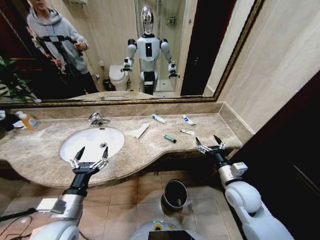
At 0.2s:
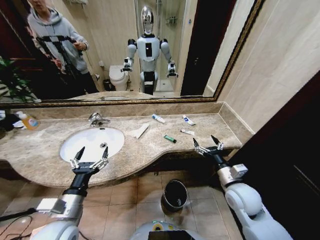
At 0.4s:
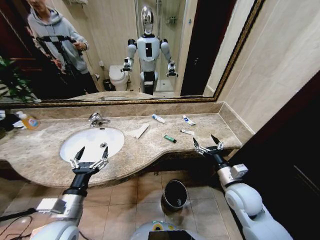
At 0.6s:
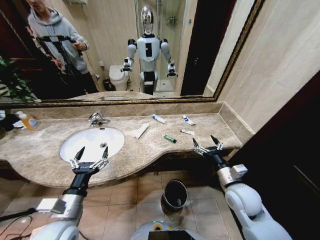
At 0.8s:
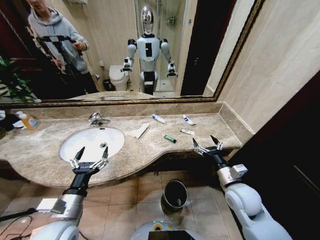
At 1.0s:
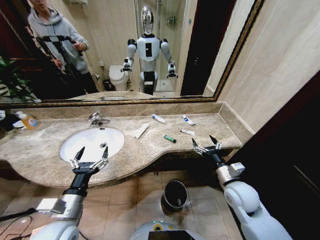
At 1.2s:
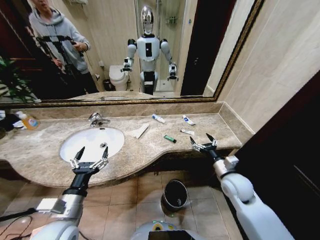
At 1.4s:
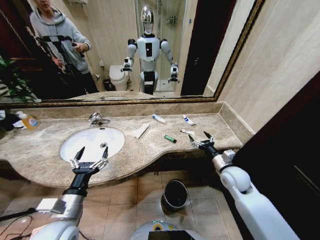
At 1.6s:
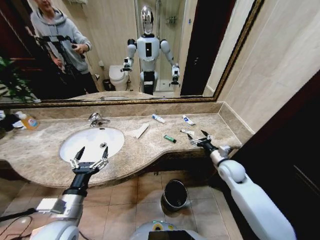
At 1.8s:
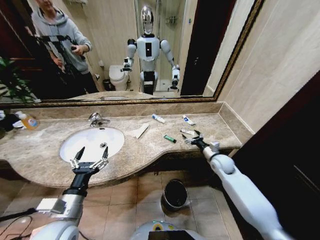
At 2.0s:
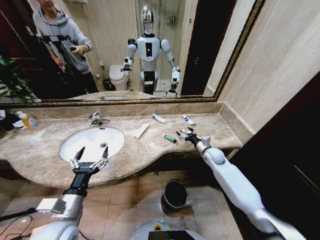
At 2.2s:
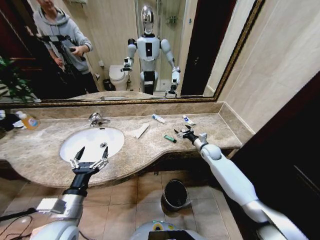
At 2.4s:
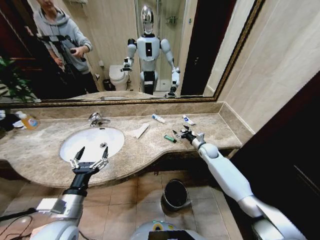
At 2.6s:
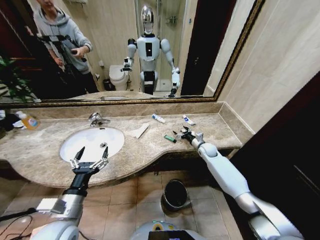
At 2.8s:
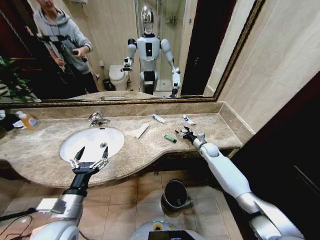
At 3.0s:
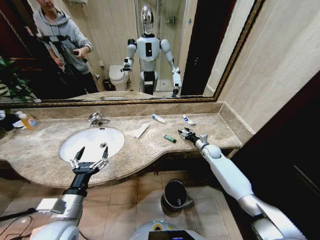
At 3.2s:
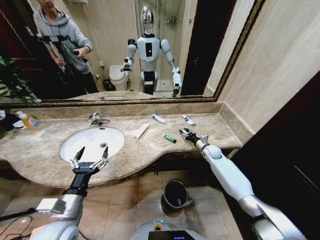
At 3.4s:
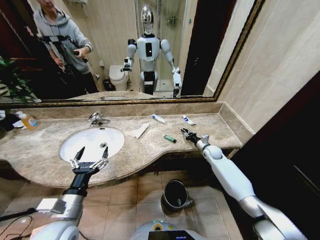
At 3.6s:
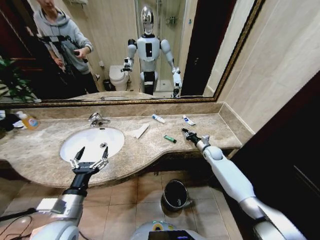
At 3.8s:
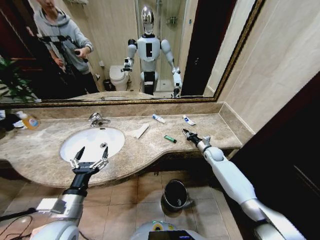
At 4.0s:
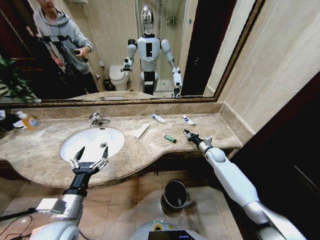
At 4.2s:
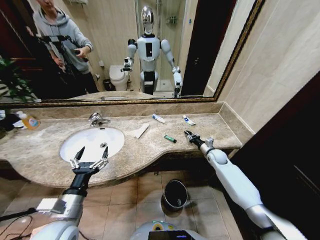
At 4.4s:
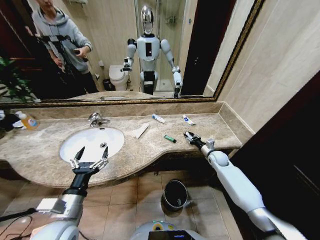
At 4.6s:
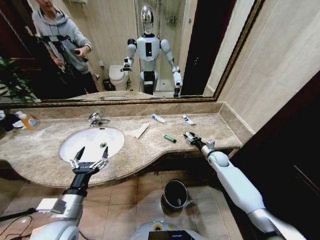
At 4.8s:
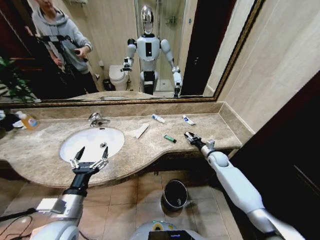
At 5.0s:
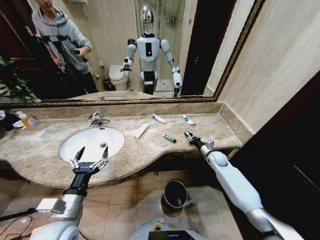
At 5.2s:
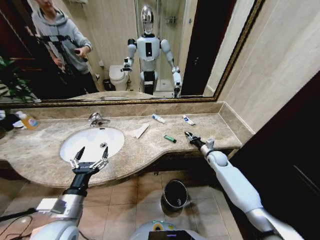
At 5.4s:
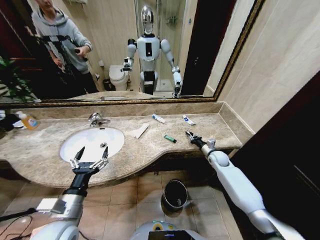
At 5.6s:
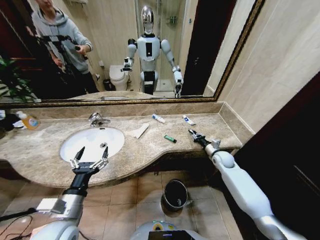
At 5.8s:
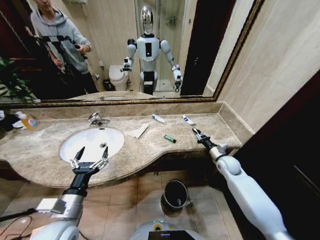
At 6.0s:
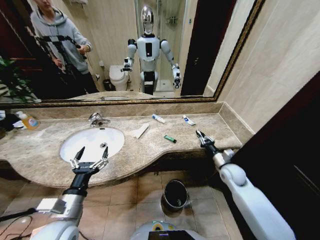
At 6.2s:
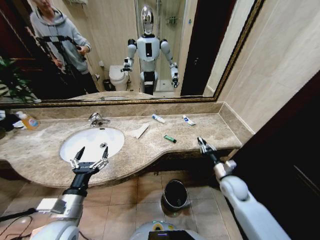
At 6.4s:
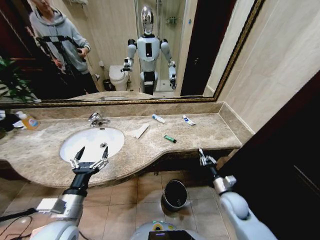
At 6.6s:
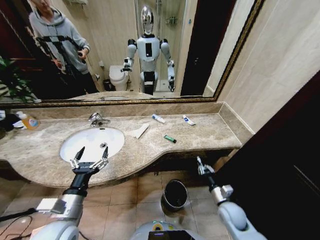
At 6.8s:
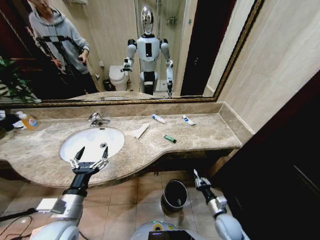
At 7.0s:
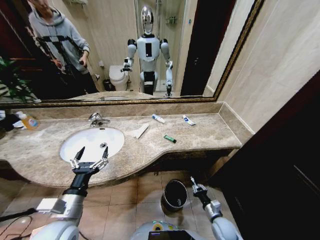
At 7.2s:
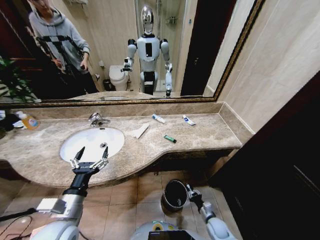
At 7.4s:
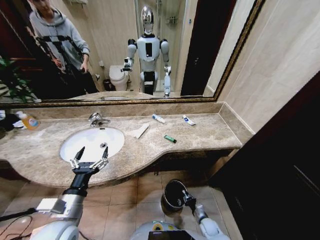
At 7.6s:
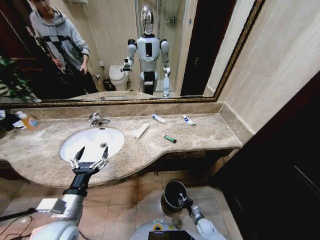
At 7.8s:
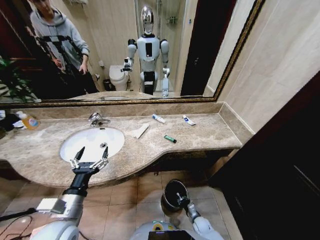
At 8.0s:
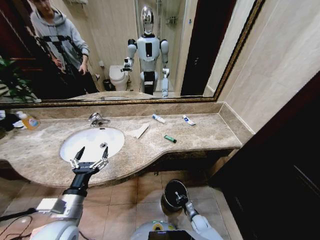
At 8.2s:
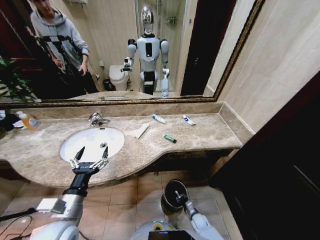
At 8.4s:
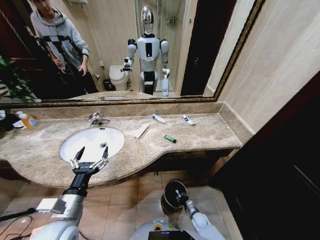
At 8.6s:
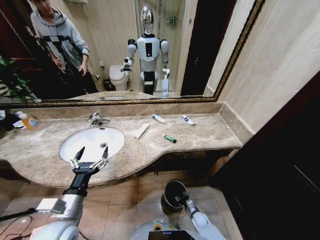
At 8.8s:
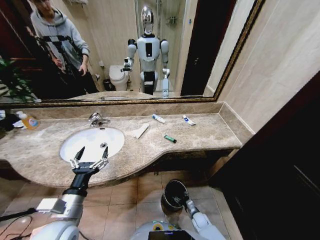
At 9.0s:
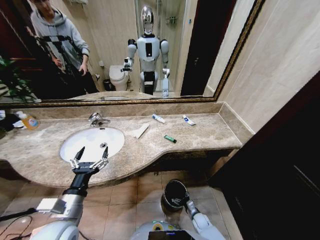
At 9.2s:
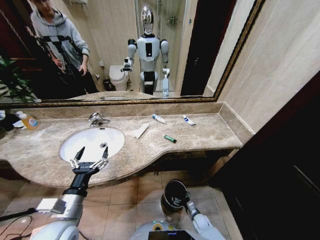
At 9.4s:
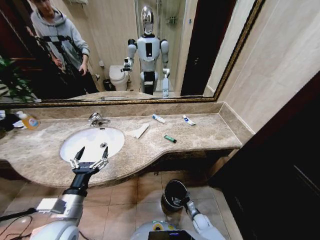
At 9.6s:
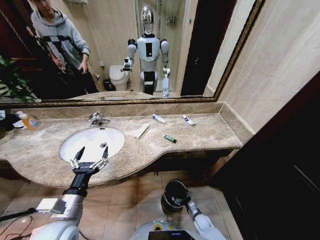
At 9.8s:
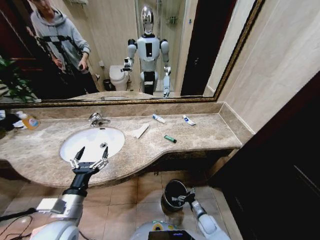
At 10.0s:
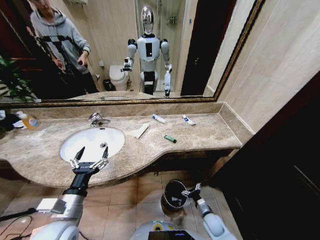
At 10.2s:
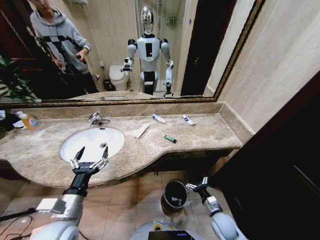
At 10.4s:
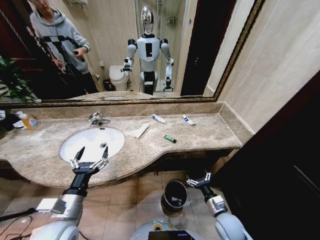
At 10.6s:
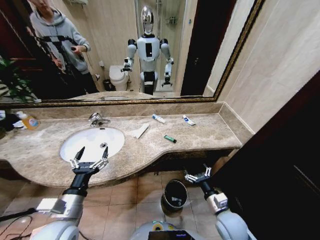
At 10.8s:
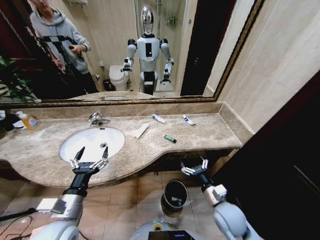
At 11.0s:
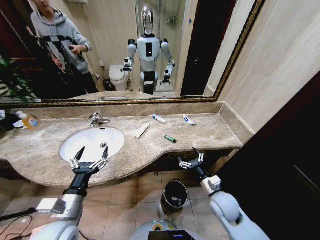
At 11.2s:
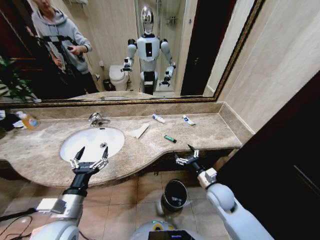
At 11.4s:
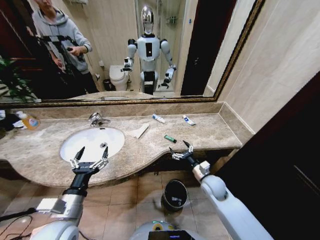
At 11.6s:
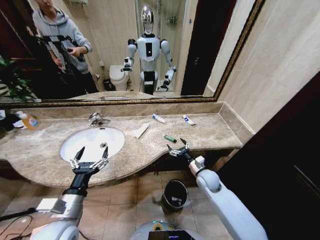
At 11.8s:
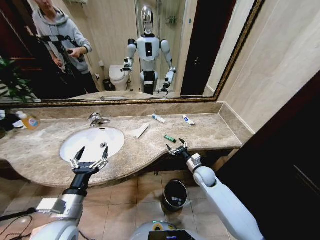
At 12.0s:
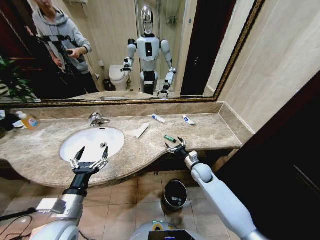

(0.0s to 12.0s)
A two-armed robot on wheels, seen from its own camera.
Task of the whole recording: Pick up the trash from the sink and place it in the trash bin.
1.6s - 3.0s: The right gripper moves forward and downward, approximately 15 cm, and closes its fingers.
3.0s - 4.4s: The right gripper closes and opens again.
4.4s - 6.0s: The right gripper goes some 10 cm backward.
6.0s - 7.6s: The right gripper moves downward and backward, some 35 cm.
7.6s - 9.0s: The right gripper opens its fingers.
9.0s - 10.4s: The right gripper moves upward, about 25 cm.
10.4s - 12.0s: The right gripper moves forward, approximately 20 cm.

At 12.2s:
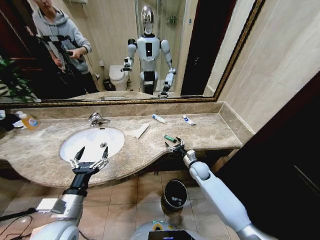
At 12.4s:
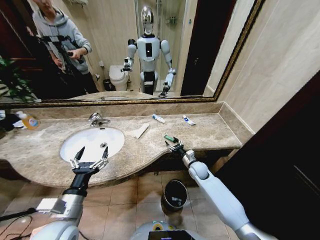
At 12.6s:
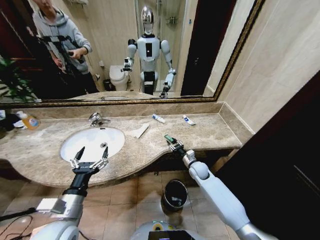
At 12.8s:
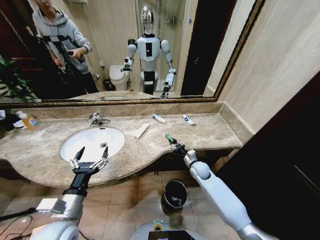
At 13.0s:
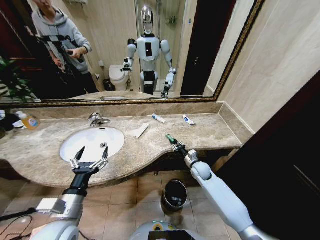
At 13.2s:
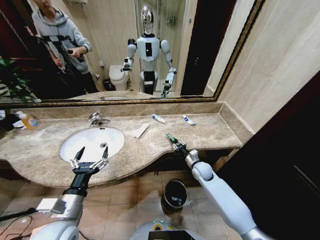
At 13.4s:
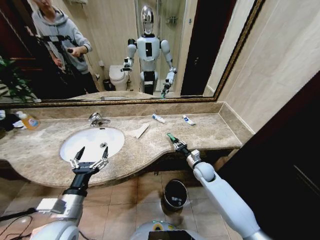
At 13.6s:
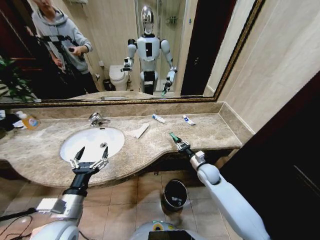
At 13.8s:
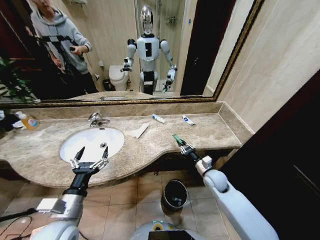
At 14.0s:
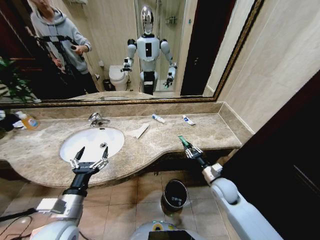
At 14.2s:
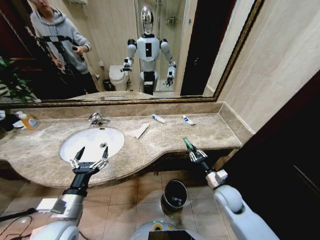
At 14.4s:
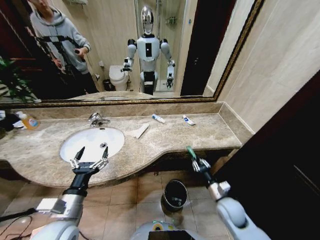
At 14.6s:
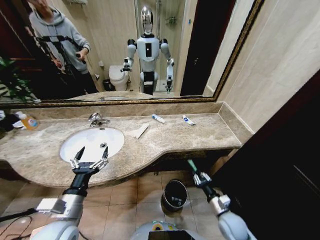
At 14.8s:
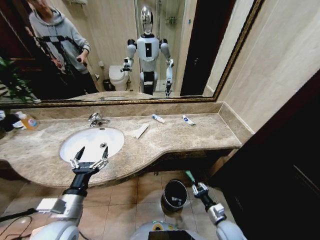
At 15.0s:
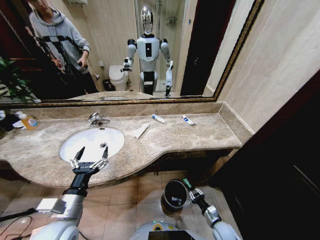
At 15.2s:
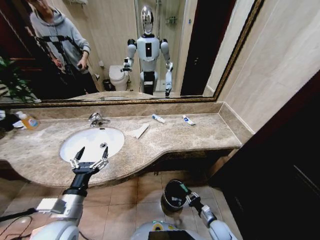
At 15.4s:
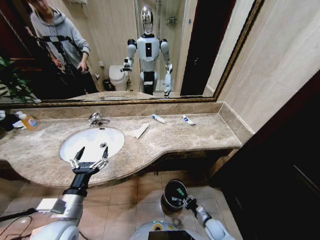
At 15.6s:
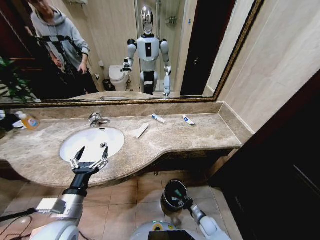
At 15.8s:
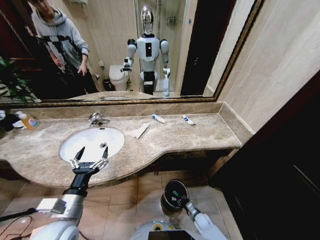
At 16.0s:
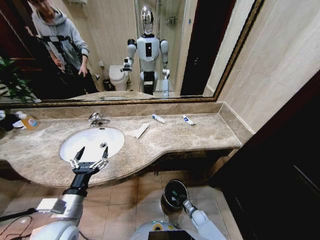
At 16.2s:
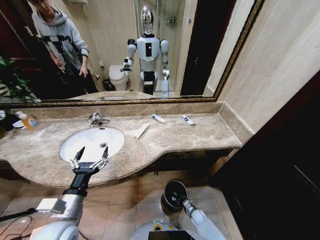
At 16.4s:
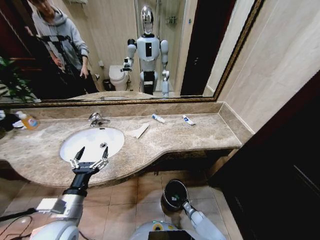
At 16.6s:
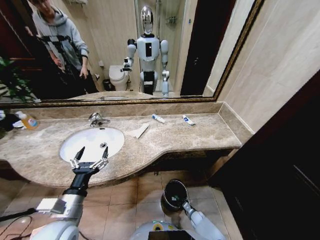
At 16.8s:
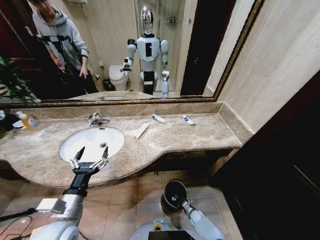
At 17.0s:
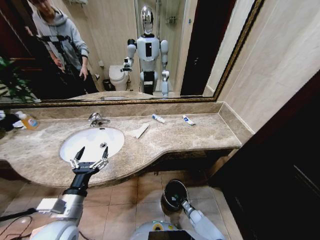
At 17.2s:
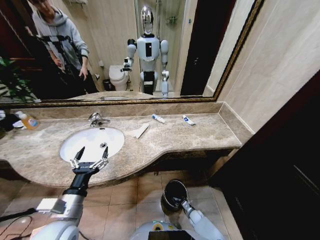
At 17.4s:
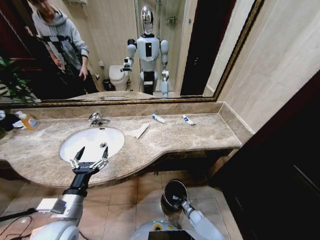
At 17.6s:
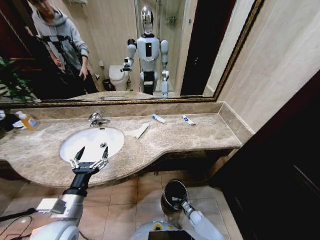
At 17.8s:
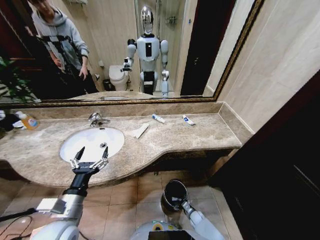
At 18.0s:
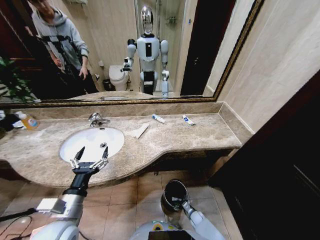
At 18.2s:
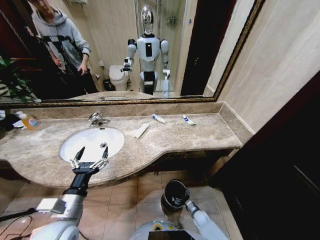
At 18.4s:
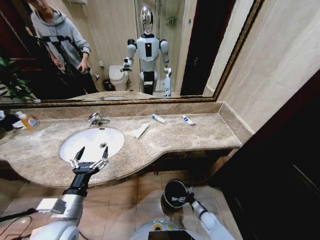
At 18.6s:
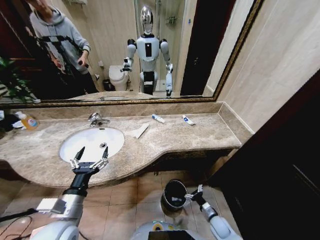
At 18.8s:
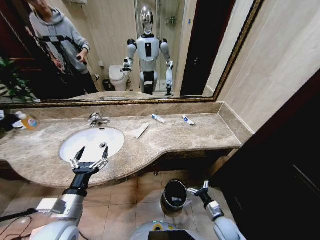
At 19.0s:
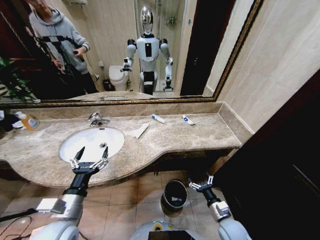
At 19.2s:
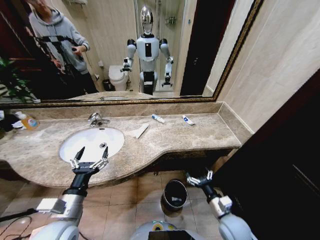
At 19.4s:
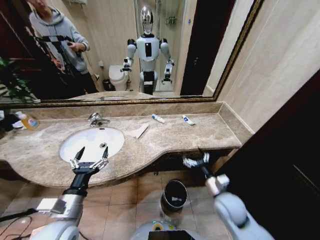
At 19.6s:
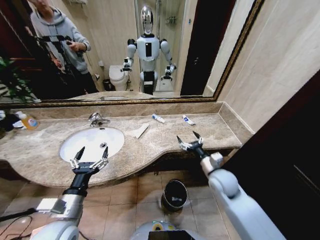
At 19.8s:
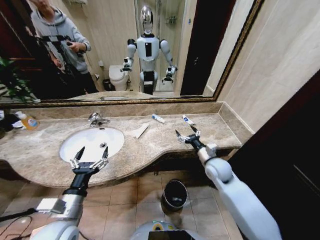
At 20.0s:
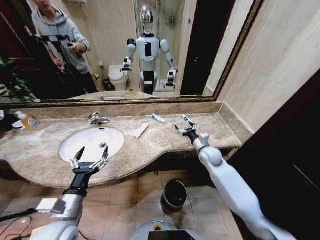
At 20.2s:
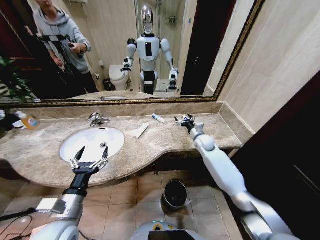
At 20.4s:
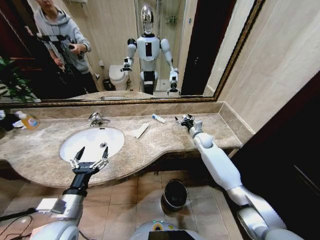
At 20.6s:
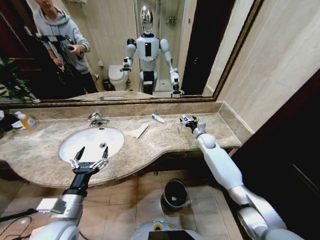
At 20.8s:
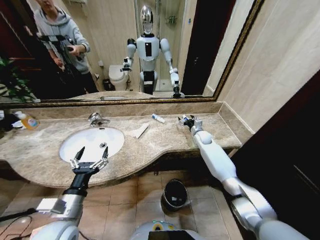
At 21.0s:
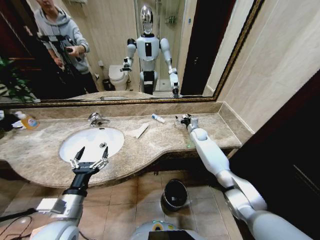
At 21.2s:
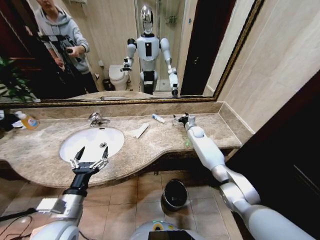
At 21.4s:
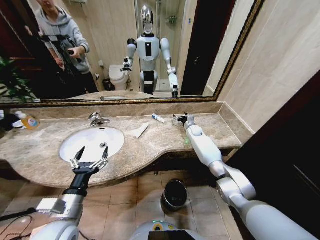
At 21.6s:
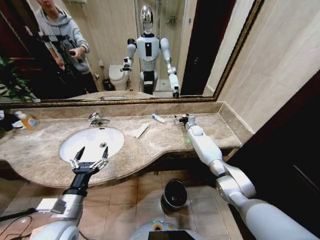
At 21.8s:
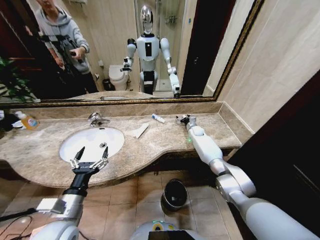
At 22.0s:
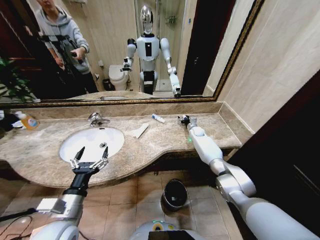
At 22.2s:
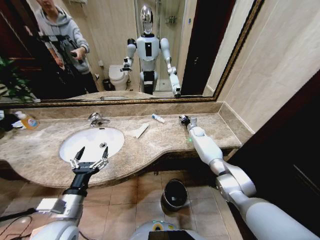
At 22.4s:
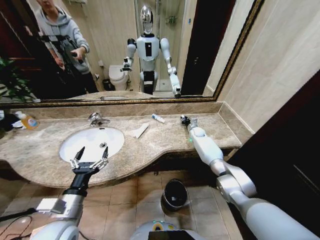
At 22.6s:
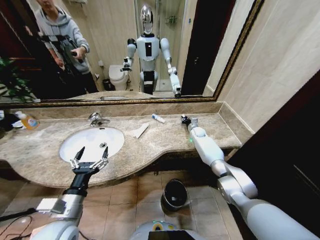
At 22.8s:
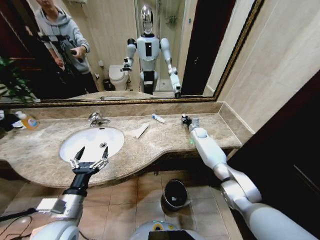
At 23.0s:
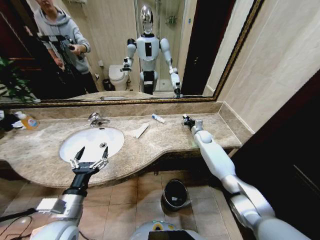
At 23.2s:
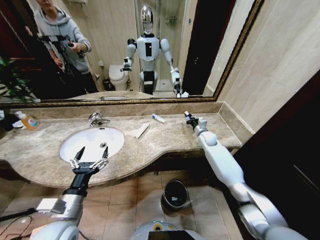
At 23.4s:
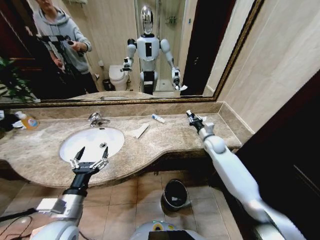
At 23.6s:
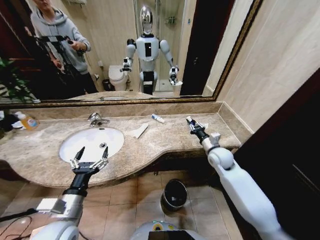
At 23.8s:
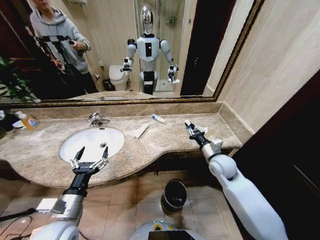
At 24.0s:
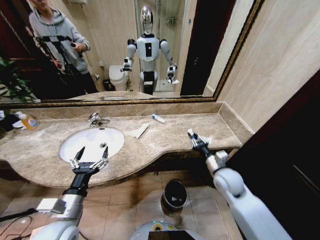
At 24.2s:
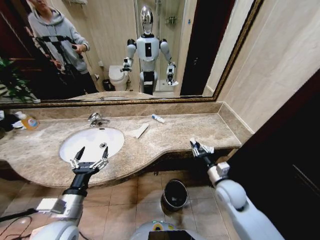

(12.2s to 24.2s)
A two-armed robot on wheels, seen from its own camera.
Task of the whole recording: Pick up the trash from the sink and place it in the trash bin.
12.2s - 13.8s: The right gripper shifts about 5 cm backward, and closes its fingers.
13.8s - 15.2s: The right gripper heads downward and backward, covering roughly 25 cm.
15.2s - 16.6s: The right gripper shifts approximately 15 cm downward and forward.
16.6s - 18.2s: The right gripper opens its fingers.
18.2s - 19.8s: The right gripper goes some 40 cm upward.
19.8s - 21.2s: The right gripper shifts roughly 25 cm forward.
21.2s - 22.6s: The right gripper closes up.
22.6s - 24.2s: The right gripper goes approximately 35 cm backward.
